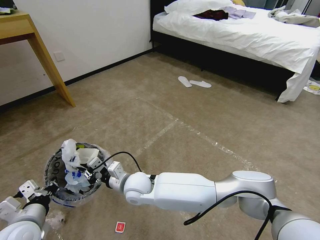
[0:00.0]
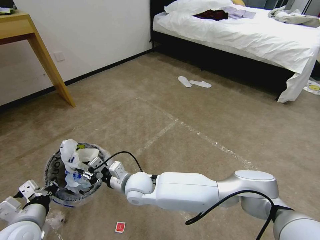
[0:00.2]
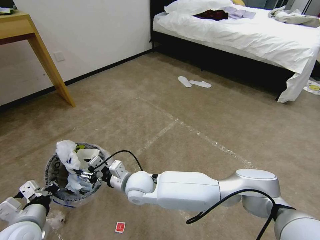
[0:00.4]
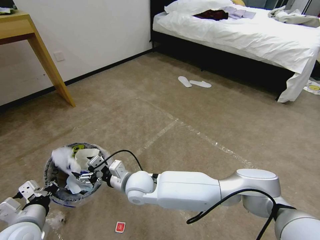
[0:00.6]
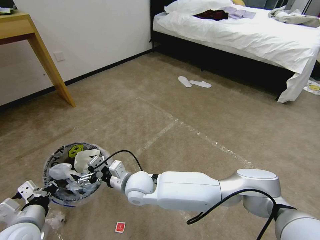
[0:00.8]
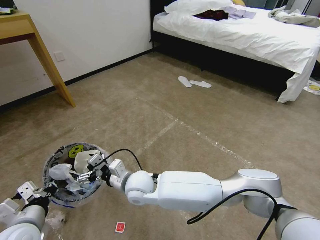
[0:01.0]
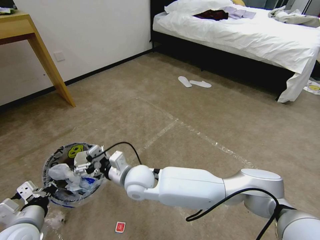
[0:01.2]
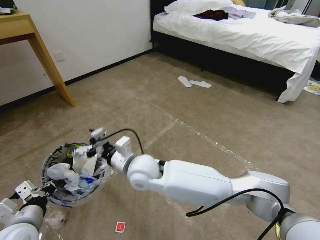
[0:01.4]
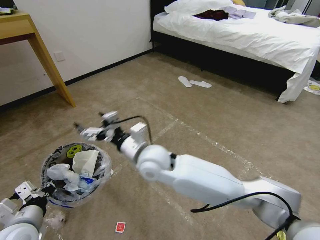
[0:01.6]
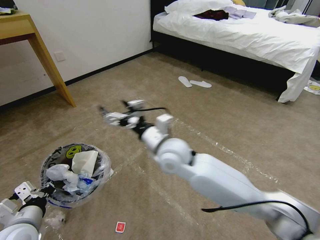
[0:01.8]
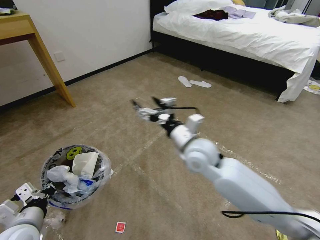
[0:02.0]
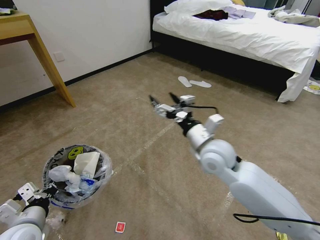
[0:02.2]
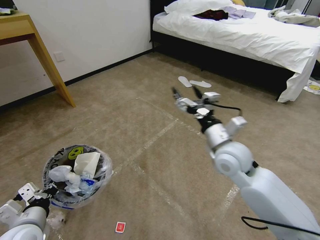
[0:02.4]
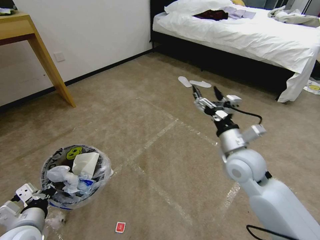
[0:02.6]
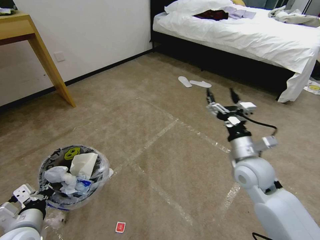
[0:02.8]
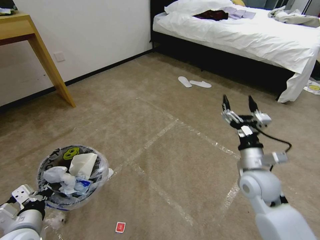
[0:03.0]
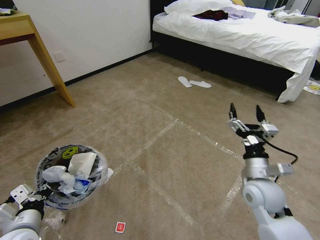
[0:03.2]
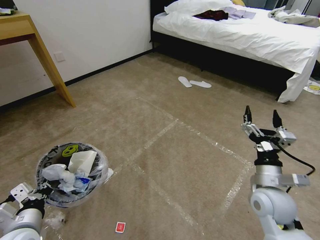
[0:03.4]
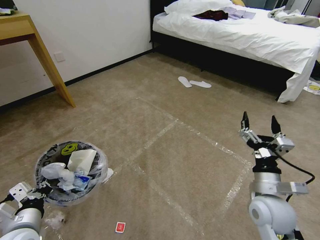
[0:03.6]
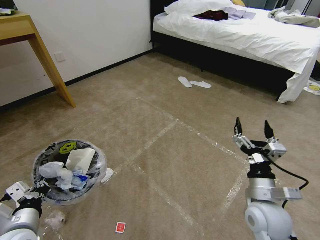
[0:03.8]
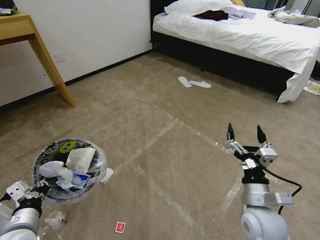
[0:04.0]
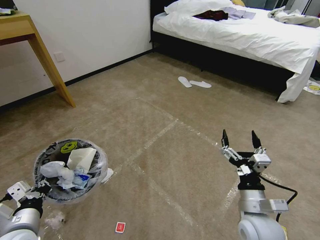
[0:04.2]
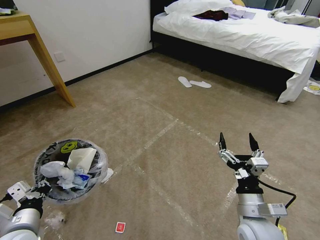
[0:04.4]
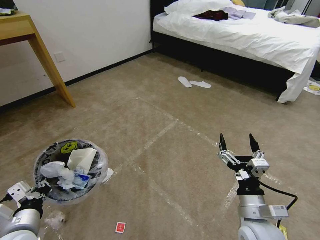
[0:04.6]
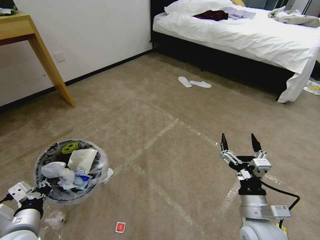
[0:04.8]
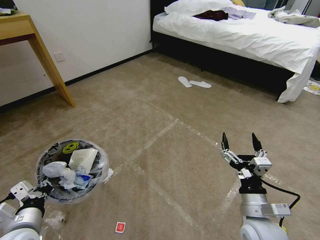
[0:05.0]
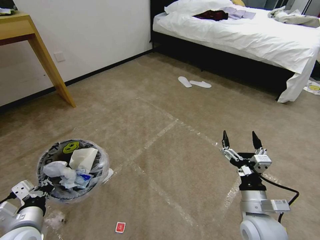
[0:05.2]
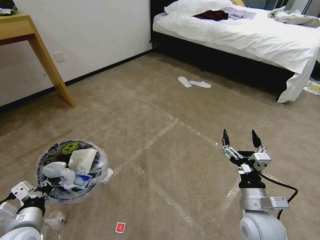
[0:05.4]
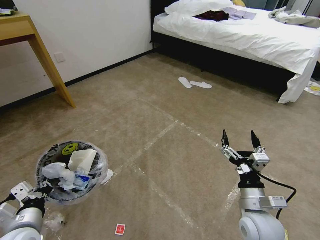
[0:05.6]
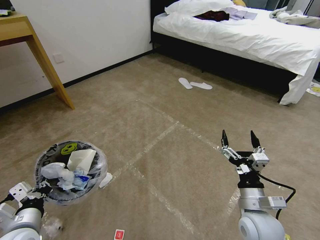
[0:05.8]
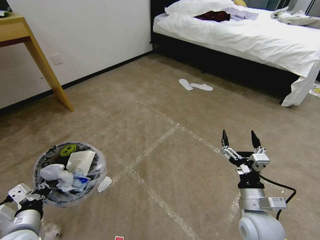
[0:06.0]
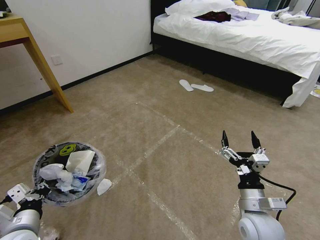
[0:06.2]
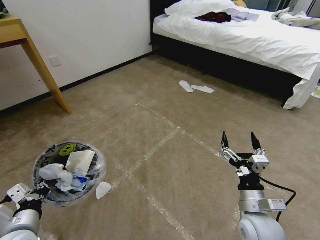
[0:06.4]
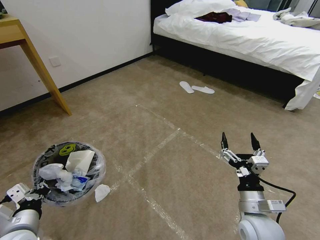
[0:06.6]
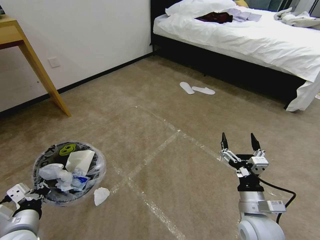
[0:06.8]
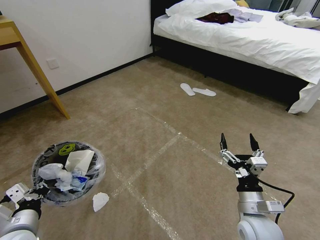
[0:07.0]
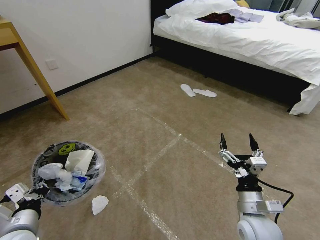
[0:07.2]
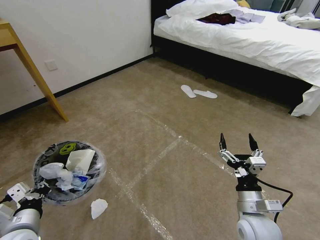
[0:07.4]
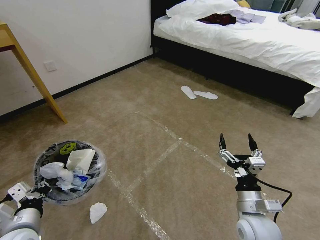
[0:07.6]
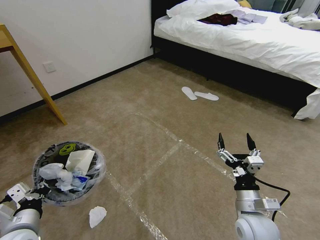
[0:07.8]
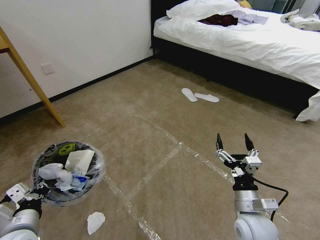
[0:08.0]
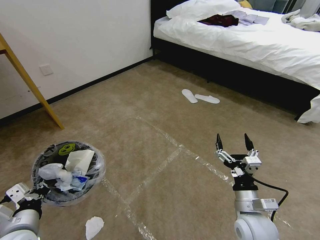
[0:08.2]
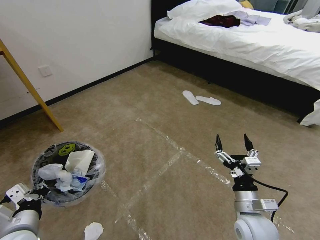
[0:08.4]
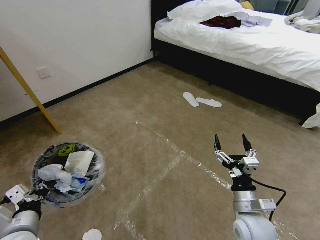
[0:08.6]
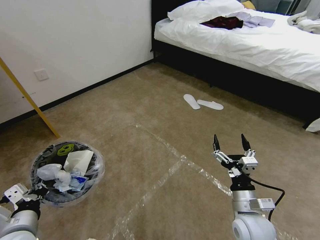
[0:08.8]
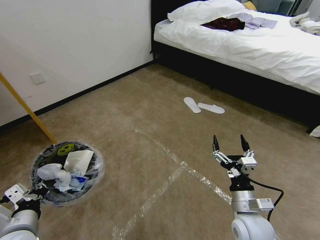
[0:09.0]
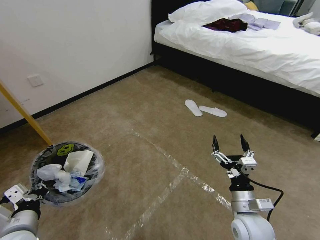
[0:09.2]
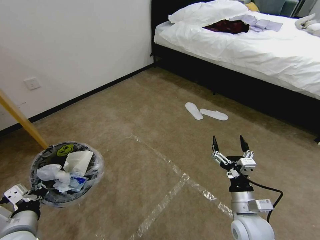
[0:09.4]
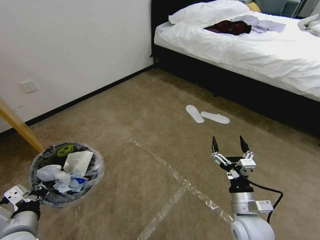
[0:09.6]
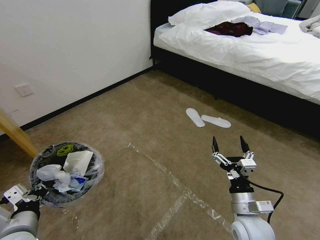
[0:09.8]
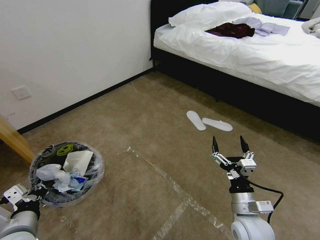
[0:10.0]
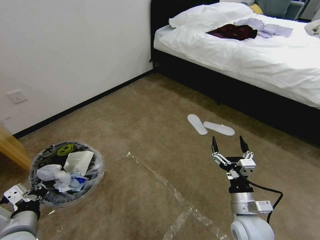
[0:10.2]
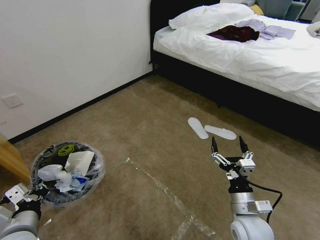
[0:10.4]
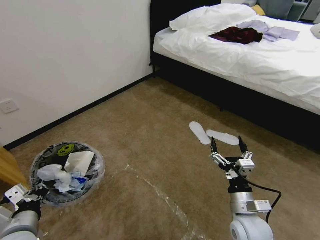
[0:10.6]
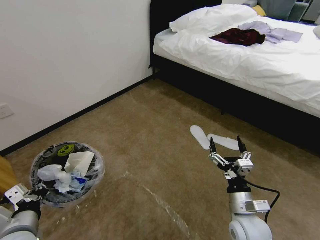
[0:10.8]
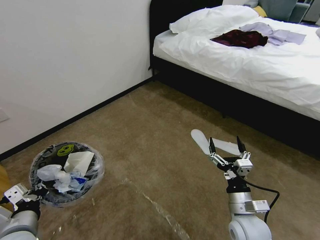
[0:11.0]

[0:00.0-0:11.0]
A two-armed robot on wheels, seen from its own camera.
Task of the whole recording: Pick up the trash bin and place the garbage on the floor into it.
0:00.0 to 0:01.6: The right gripper travels upward by some 10 cm, and opens its fingers.
0:01.6 to 0:03.2: The right gripper goes about 35 cm to the right.
0:03.2 to 0:04.8: The right gripper travels backward by roughly 10 cm.
0:04.8 to 0:06.2: The grippers make only small movements.

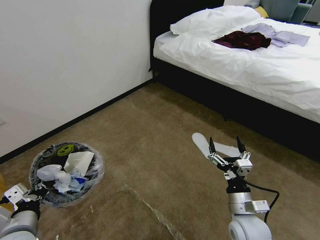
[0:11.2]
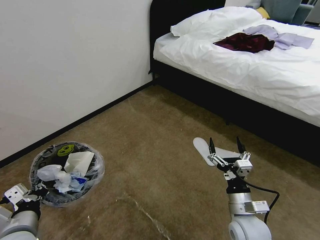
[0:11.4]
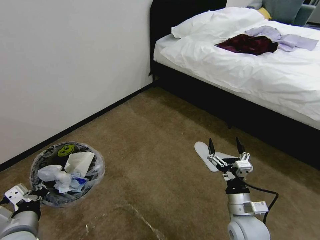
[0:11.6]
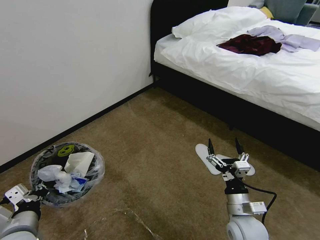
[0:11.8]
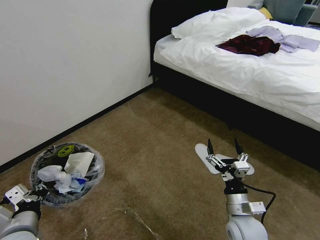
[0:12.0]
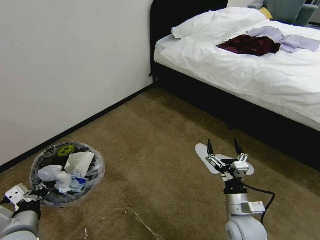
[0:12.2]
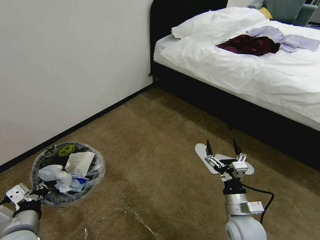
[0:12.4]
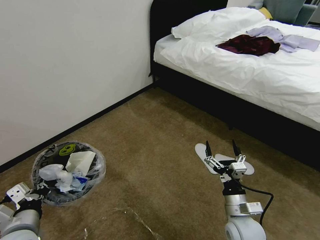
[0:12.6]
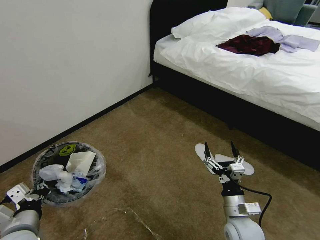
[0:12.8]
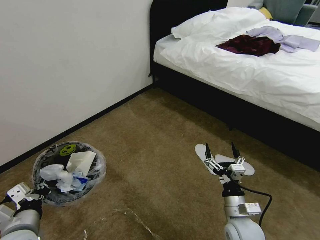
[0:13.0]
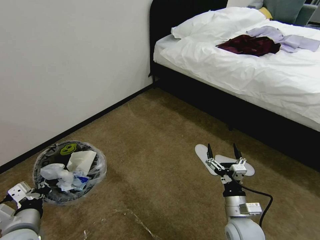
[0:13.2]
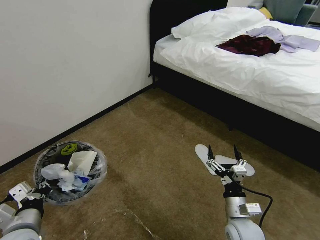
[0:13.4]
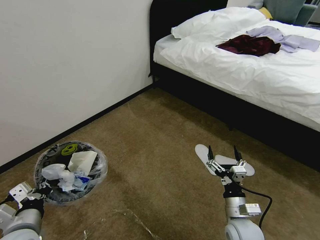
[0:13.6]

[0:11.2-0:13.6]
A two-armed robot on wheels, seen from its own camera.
Task of the whole recording: Pick up the trash bin and place the garbage on the floor into it.
0:11.2 to 0:13.6: The grippers move only a little.
